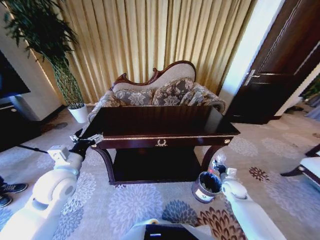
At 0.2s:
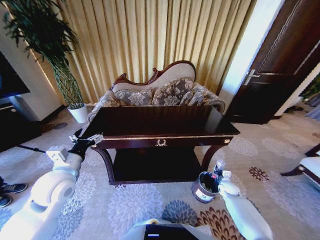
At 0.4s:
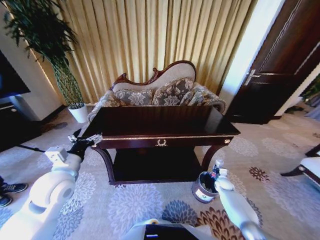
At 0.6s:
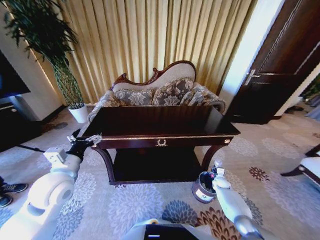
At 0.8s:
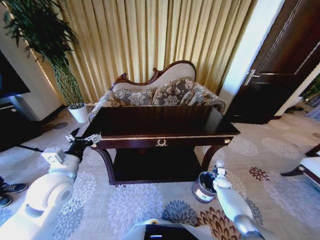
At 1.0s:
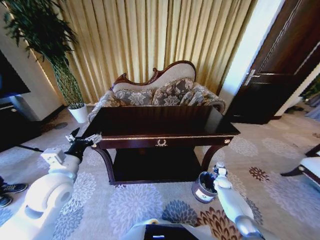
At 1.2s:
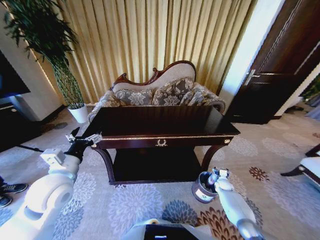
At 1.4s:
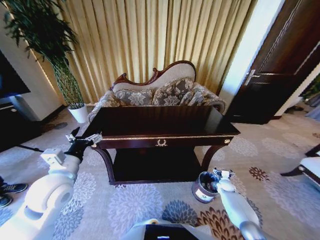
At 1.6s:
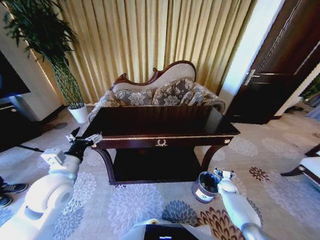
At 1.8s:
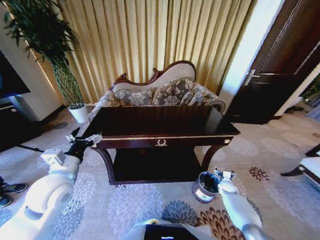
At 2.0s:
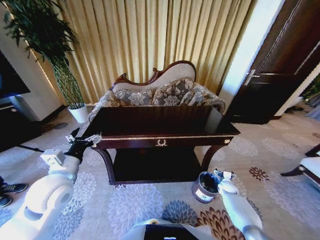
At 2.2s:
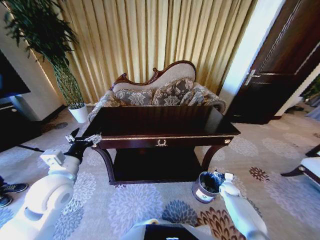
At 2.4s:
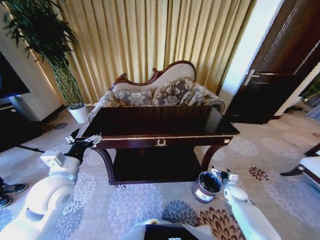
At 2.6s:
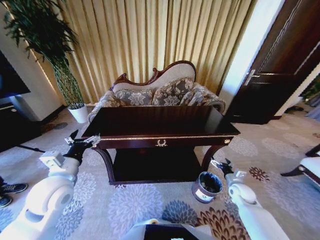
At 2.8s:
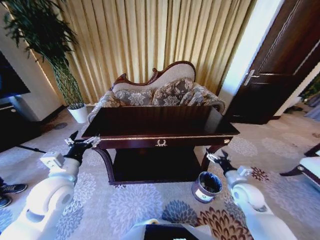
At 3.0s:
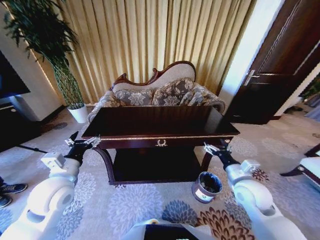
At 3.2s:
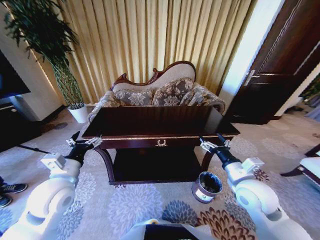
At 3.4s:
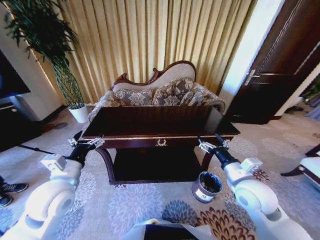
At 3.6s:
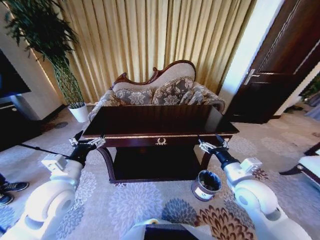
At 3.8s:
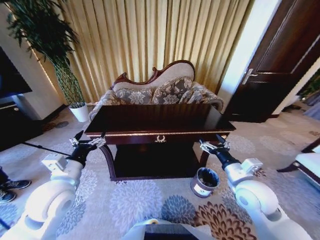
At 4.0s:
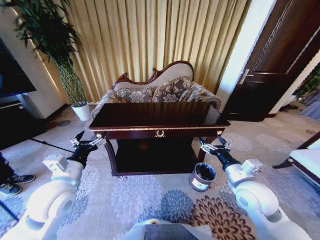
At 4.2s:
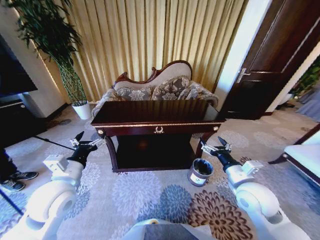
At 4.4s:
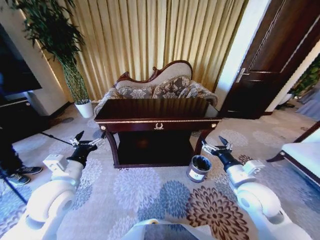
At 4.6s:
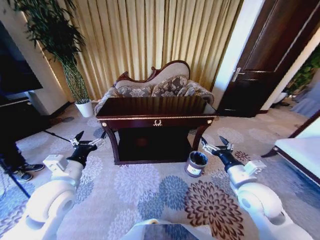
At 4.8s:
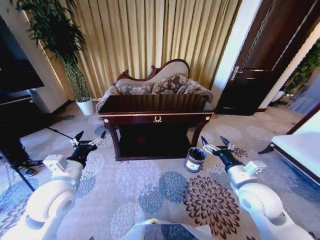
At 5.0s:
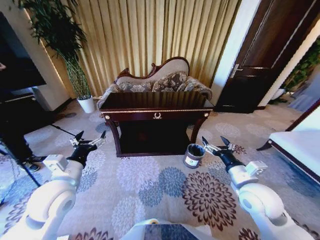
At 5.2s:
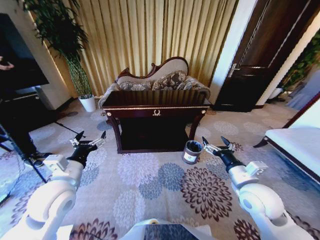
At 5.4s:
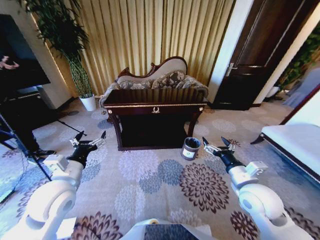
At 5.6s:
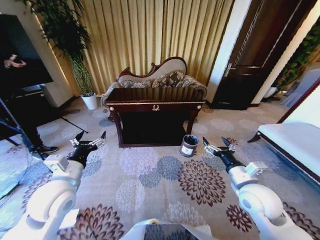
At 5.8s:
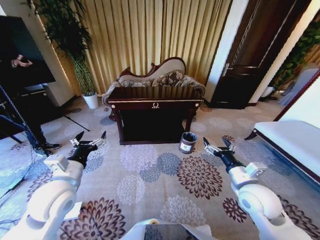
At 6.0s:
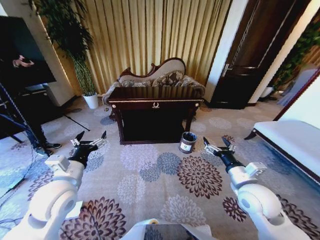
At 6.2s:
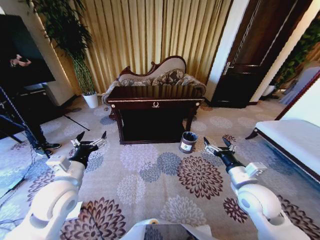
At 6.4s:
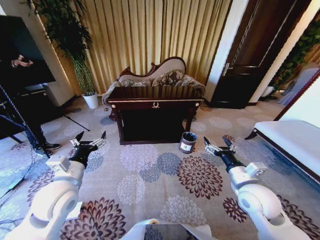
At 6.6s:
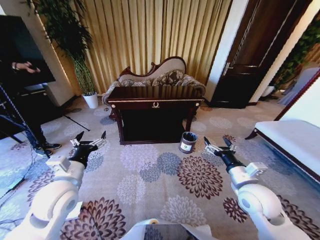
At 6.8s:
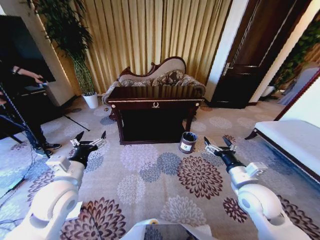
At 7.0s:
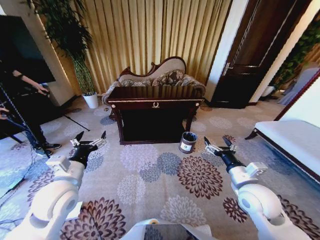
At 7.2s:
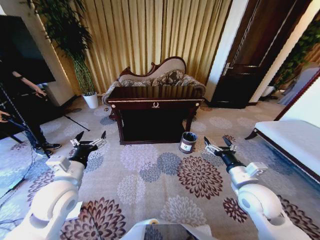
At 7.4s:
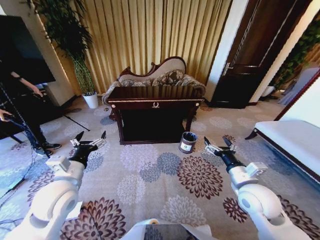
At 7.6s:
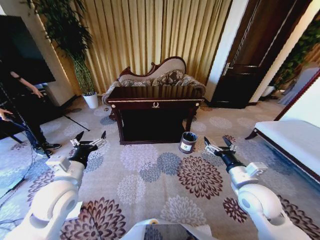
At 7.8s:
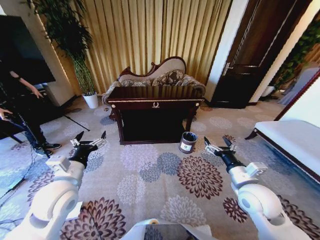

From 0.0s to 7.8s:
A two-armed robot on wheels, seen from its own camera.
Task of the whole recording: Move to the front of the table and place the trash on the table into the trash bin.
From 0.0s to 1.6s: The right gripper is displaced downward and to the right by approximately 15 cm, and opens up.
From 1.6s to 3.2s: The right gripper travels upward and to the left by approximately 40 cm.
From 6.2s to 7.8s: Both grippers stay about where they are.

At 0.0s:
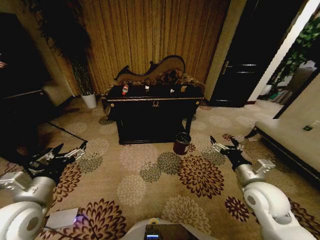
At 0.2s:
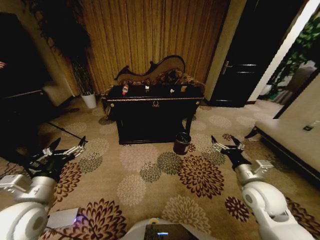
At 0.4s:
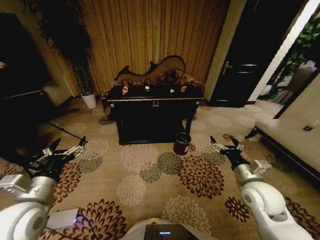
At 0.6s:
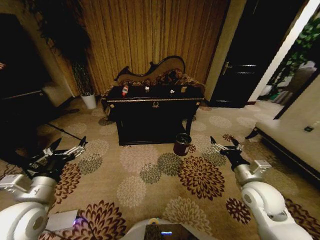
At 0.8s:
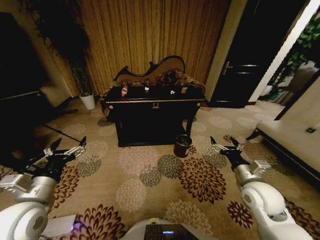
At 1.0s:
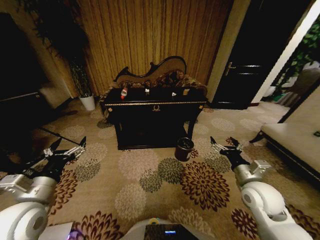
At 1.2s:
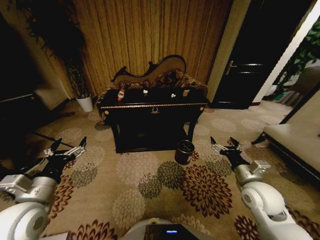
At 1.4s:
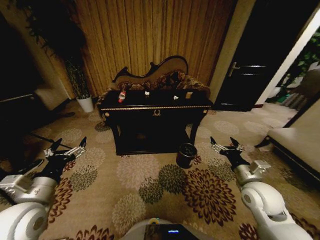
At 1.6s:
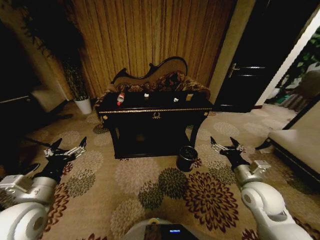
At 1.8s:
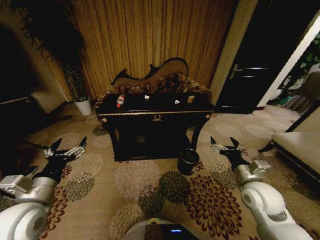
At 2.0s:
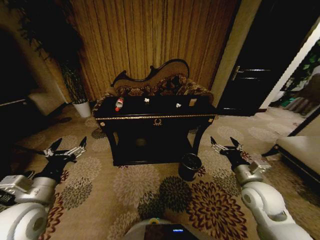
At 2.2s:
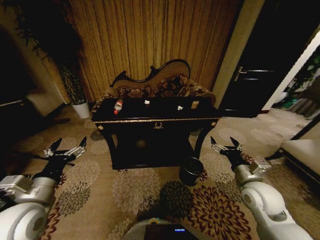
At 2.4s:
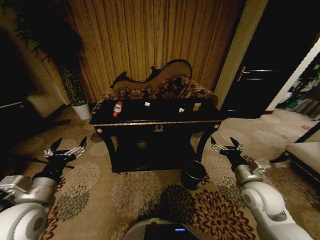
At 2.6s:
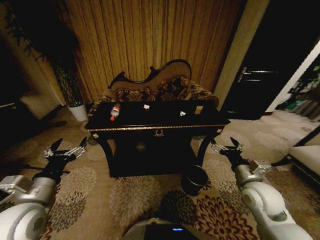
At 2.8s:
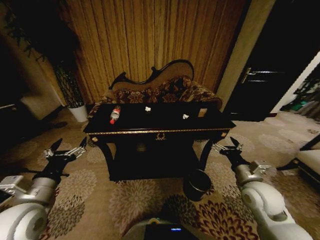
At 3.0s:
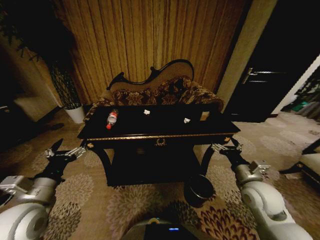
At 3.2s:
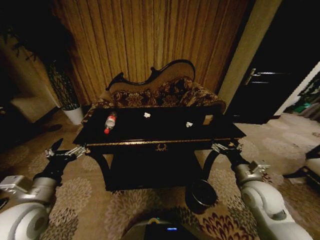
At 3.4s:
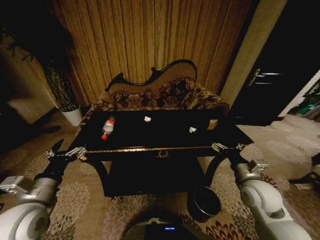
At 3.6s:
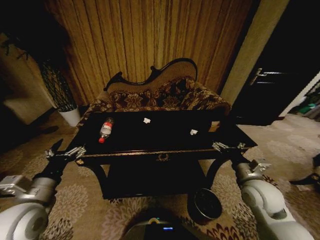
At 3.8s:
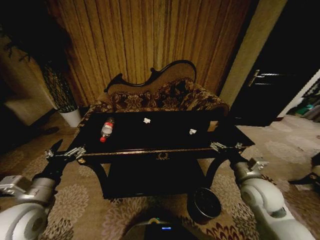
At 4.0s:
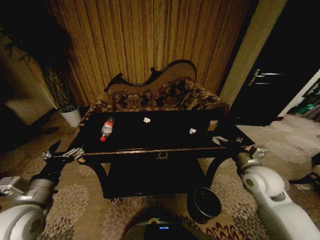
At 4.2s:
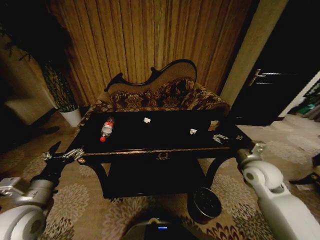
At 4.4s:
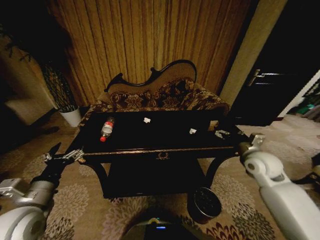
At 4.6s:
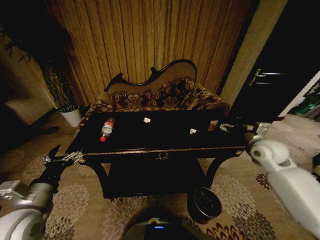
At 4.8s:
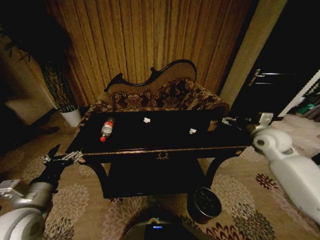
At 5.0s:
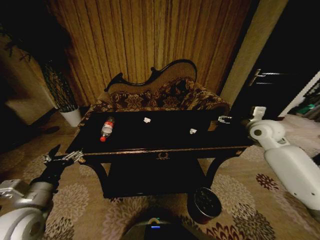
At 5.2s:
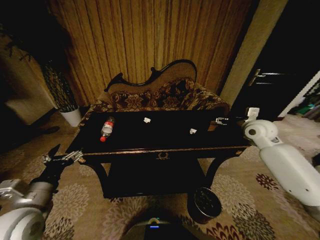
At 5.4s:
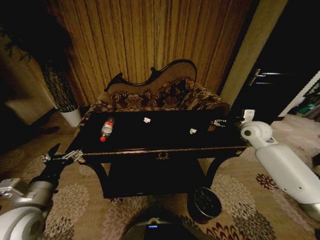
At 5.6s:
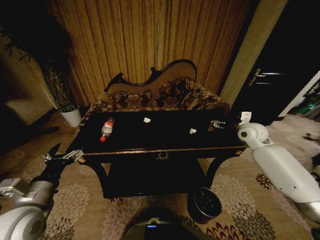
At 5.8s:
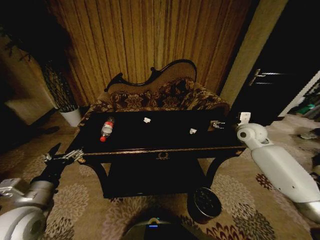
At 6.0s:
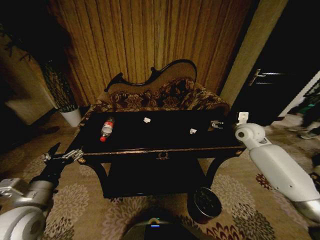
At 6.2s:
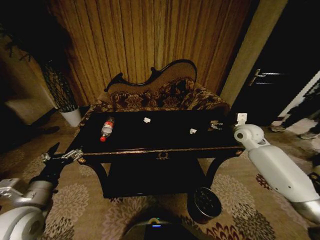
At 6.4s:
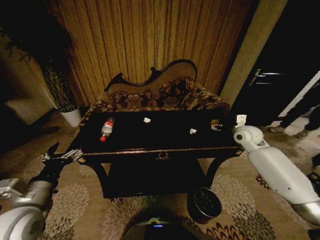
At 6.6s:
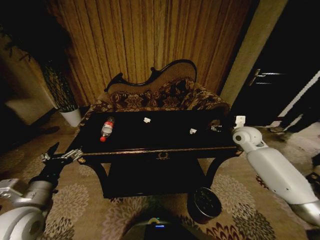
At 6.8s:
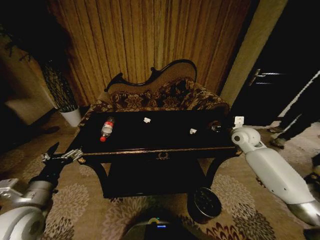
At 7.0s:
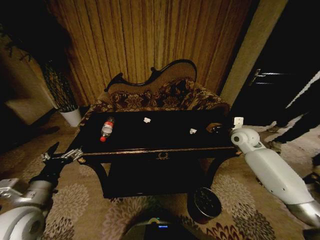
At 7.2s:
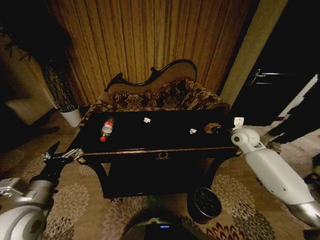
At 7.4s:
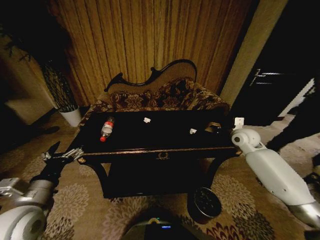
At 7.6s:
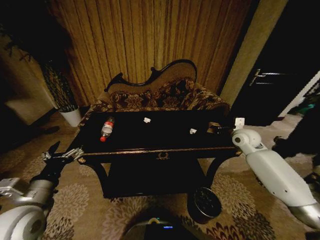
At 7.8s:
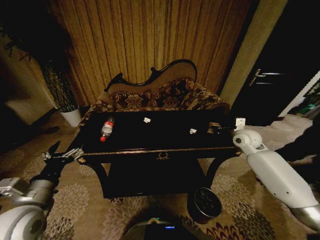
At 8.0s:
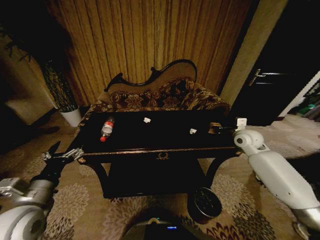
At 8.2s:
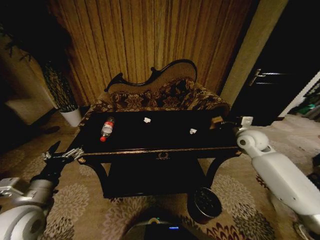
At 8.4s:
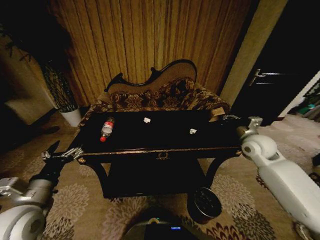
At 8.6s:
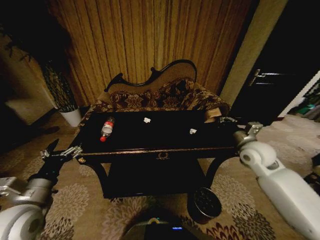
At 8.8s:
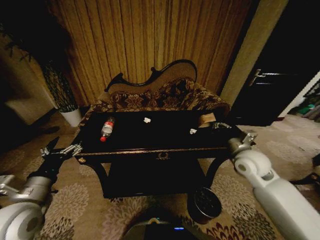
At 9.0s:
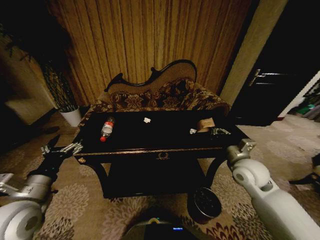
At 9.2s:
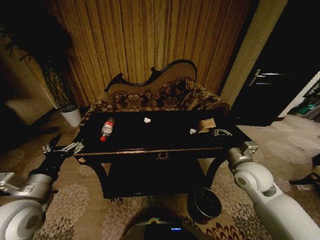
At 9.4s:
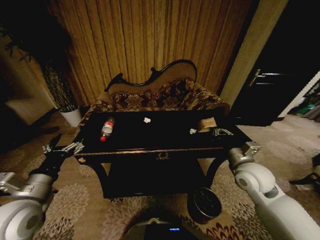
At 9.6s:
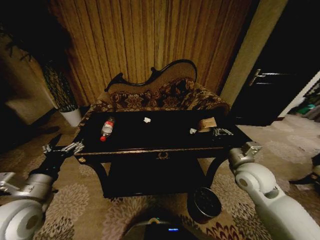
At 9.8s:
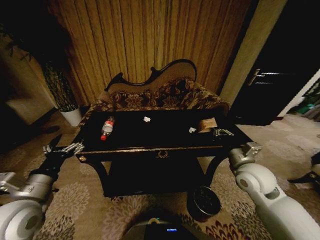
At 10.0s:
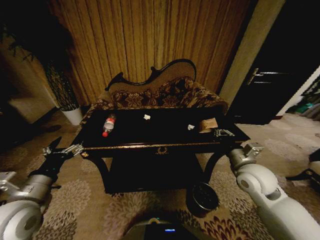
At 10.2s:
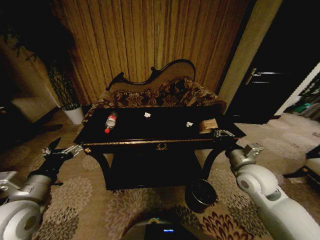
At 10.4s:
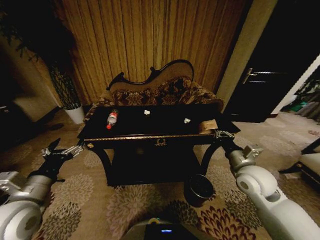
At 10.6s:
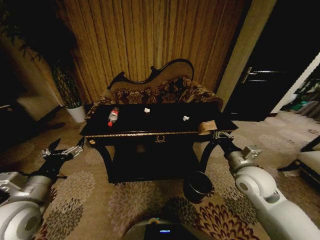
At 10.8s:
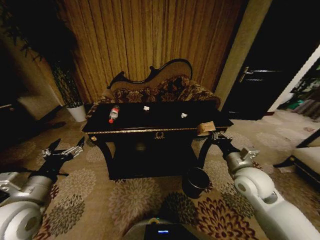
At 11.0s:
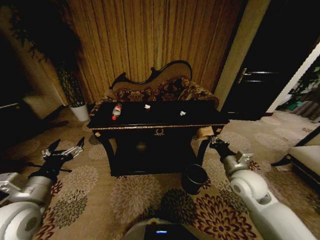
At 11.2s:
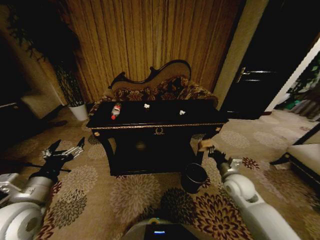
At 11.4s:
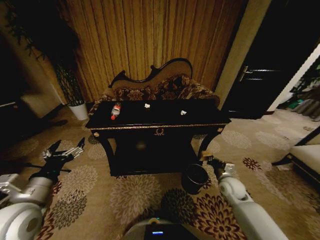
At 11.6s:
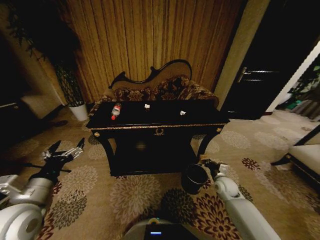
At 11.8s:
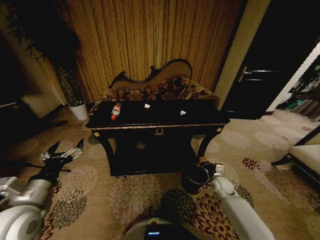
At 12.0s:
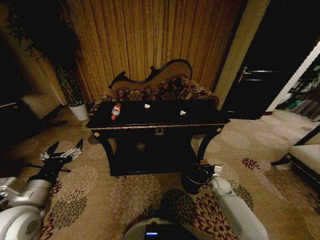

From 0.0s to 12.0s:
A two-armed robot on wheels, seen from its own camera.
Task of the whole recording: Move to the front of the table and place the trash on the table into the trash bin.
From 3.0s to 4.4s: The right gripper goes approximately 10 cm forward.
From 4.4s to 6.0s: The right gripper travels forward by some 15 cm.
From 6.0s to 7.6s: The right gripper closes up.
From 7.6s to 9.0s: The right gripper moves backward and to the left, roughly 15 cm.
From 10.4s to 12.0s: The right gripper heads downward, covering about 25 cm.

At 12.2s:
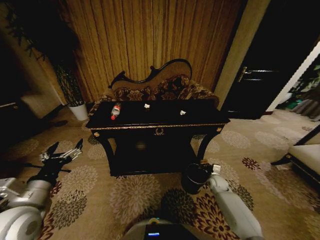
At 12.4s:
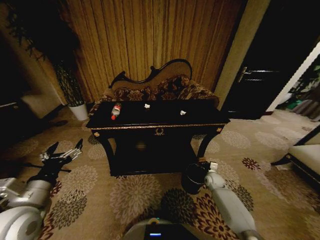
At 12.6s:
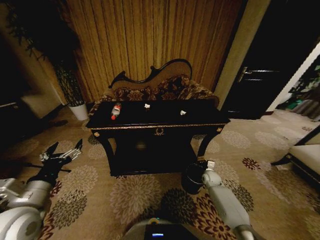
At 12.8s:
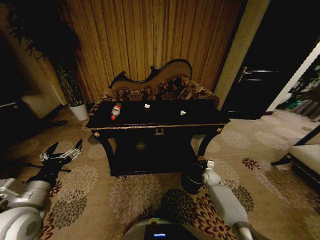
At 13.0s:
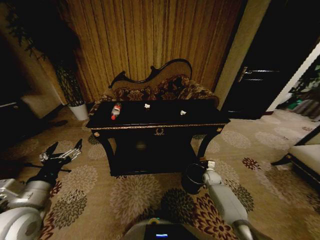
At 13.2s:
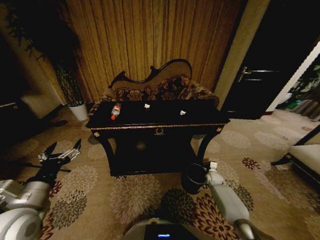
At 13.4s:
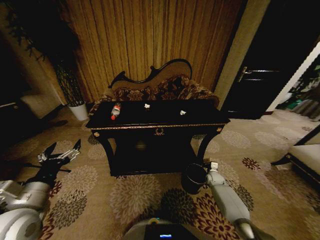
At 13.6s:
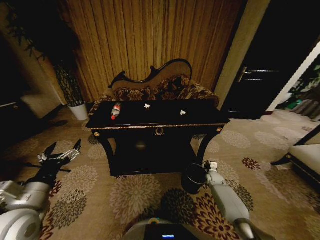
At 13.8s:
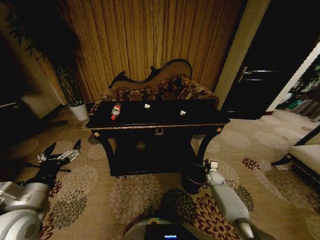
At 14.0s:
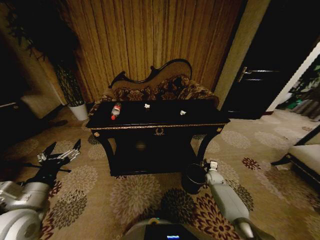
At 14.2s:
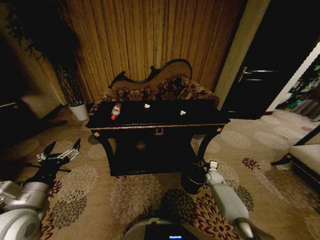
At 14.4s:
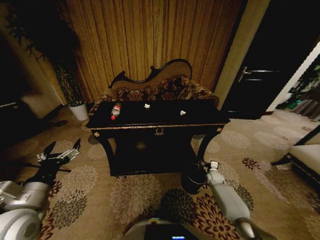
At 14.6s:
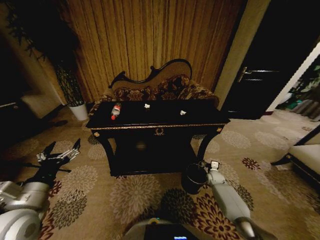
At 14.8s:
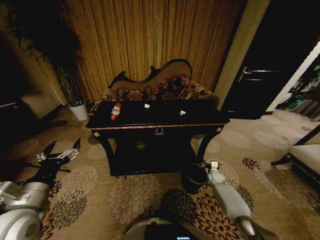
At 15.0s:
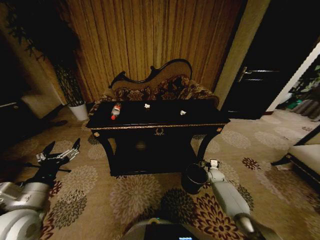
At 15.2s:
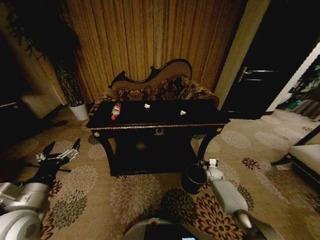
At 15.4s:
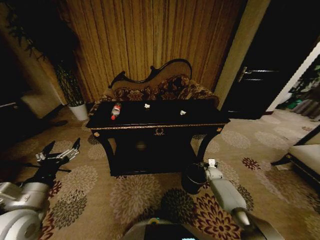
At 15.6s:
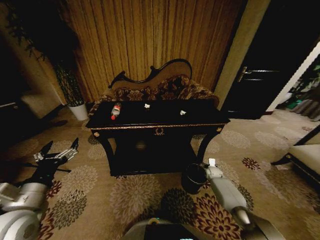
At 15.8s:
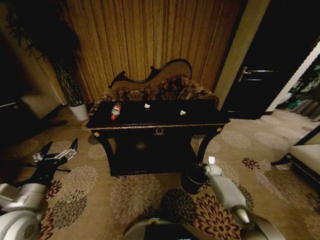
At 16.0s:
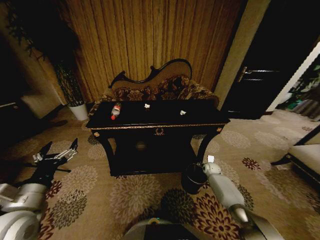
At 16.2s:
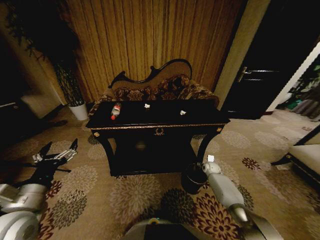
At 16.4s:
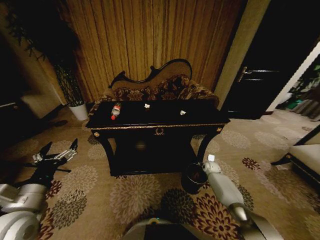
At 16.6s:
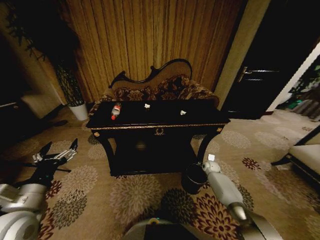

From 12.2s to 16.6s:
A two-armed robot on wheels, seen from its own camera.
Task of the whole recording: Move to the front of the table and place the trash on the table into the trash bin.
From 12.2s to 13.6s: The right gripper moves approximately 5 cm.
From 13.6s to 15.2s: The right gripper opens its fingers.
From 15.2s to 16.6s: The right gripper ends up roughly 5 cm from where it was.
